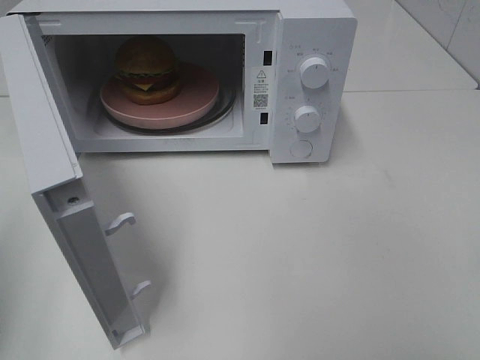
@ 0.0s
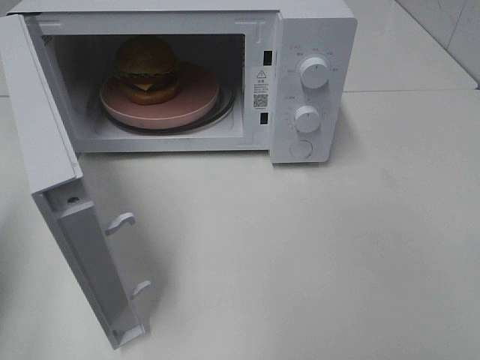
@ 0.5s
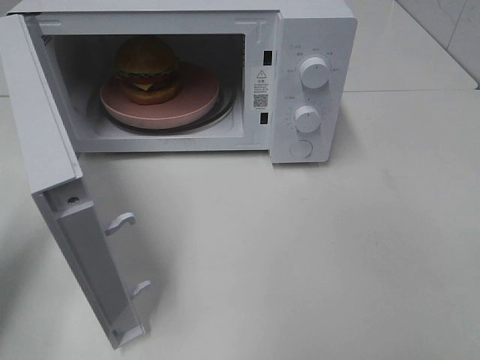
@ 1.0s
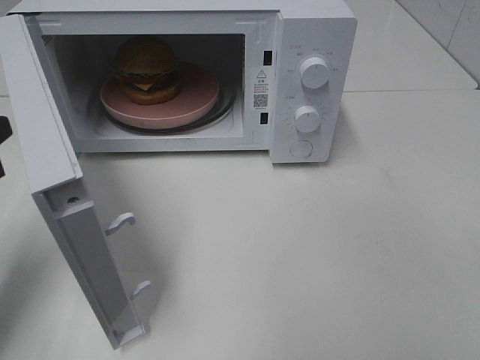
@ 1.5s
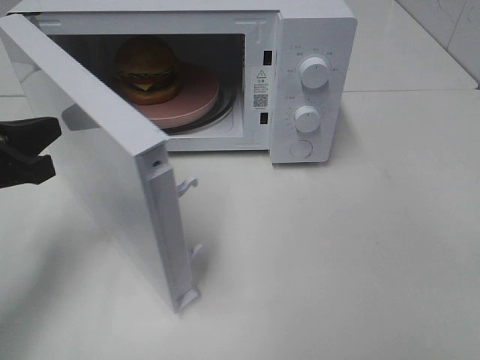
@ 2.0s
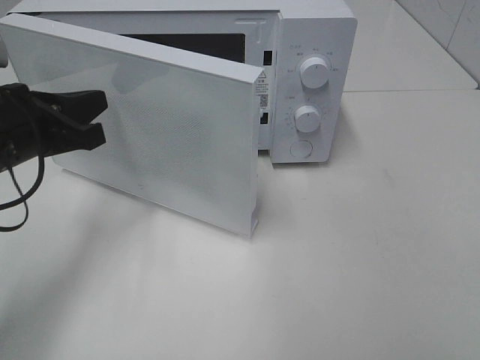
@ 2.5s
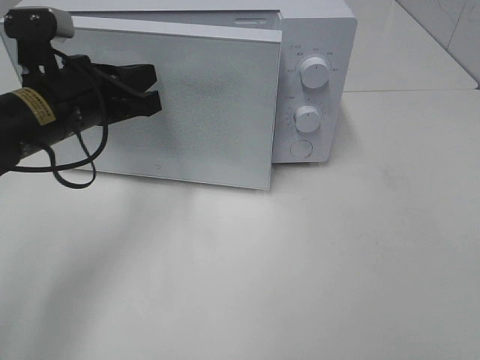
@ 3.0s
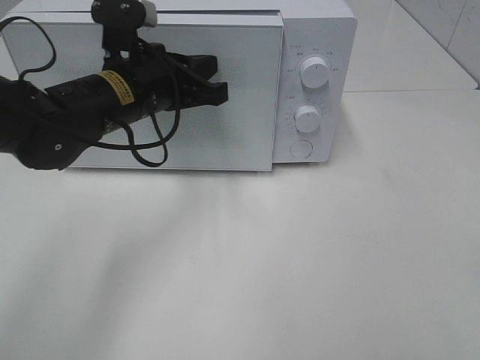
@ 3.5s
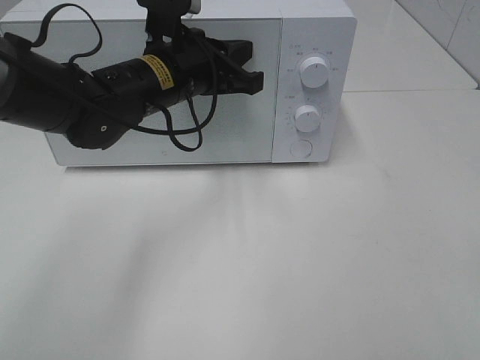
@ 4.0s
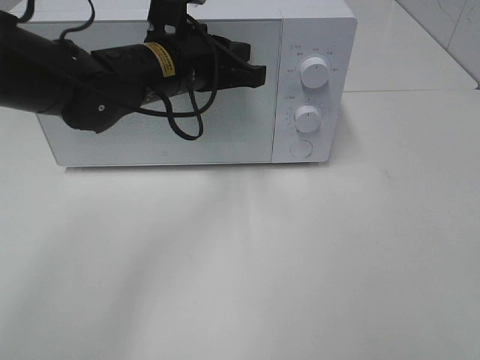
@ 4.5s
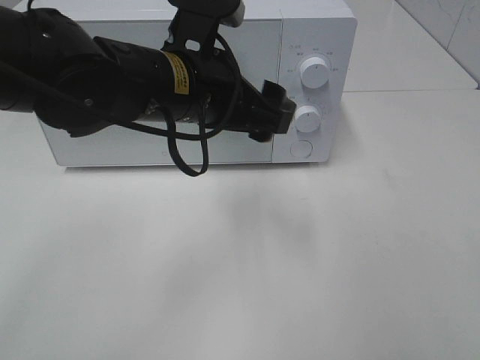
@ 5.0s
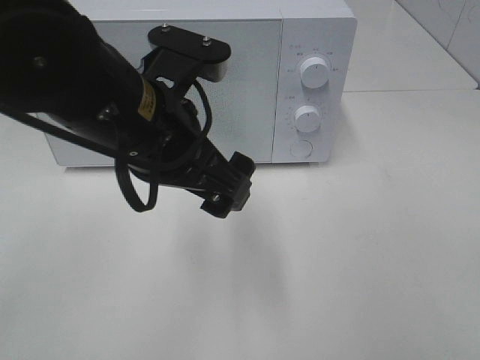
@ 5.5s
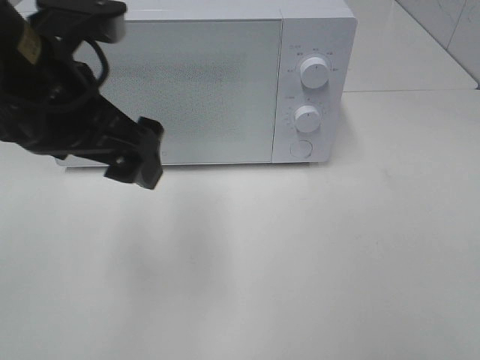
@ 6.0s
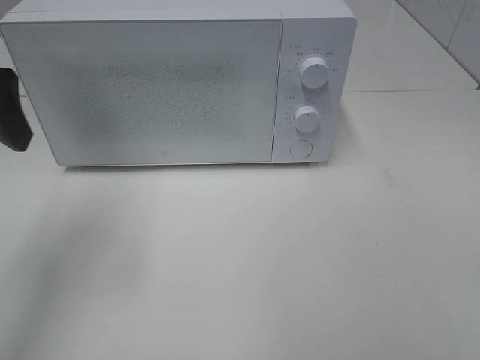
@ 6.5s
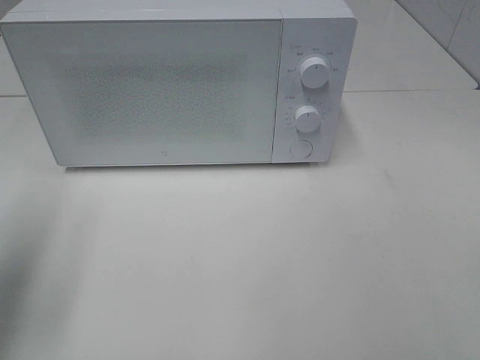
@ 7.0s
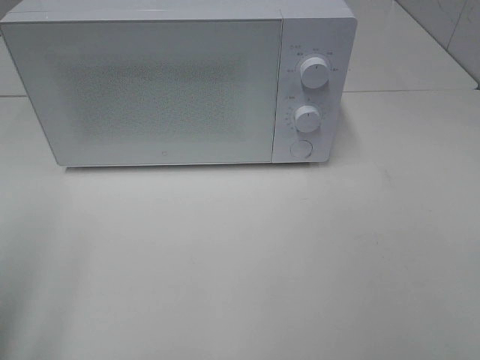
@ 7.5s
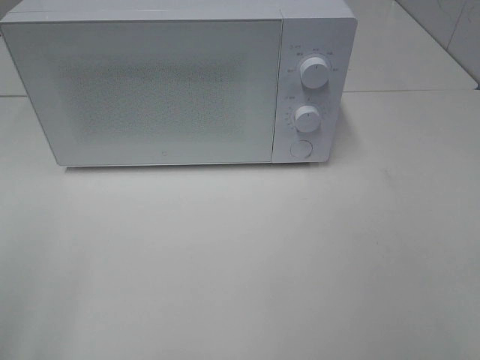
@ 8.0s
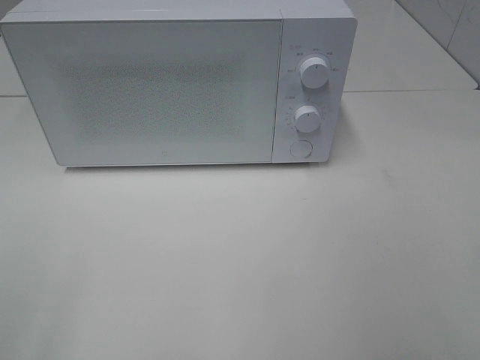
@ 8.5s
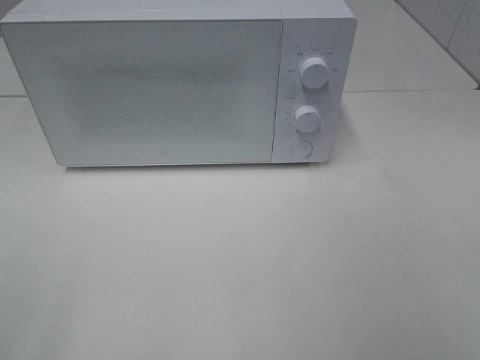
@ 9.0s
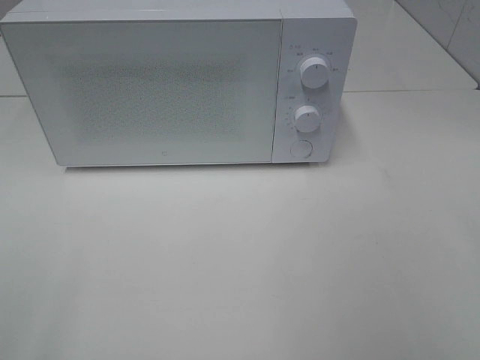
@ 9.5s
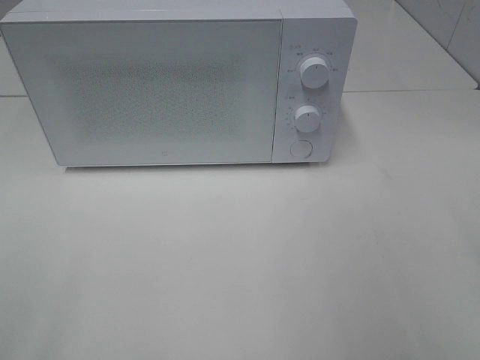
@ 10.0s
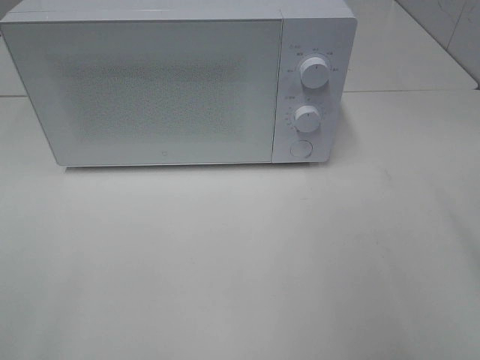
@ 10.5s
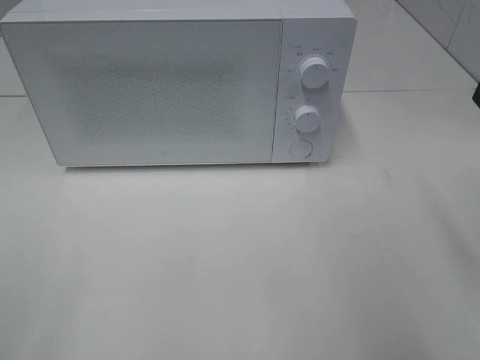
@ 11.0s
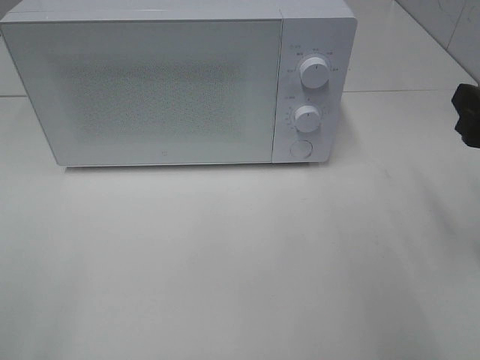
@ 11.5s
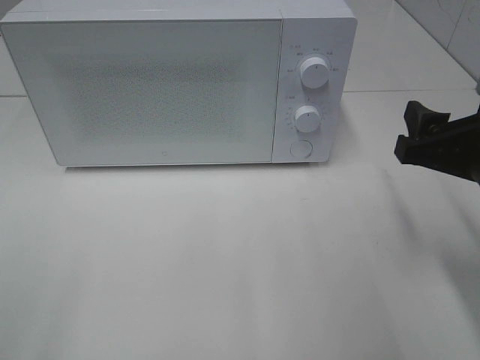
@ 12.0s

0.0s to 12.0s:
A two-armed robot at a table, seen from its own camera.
Task of the whole recording: Heat the burger.
Step, 0.0s to 4.5s: Left hand: close the microwave door.
0.0s to 2.0s: The left gripper heads forward, downward and to the right, covering about 15 cm.
2.0s to 4.0s: The left gripper heads to the right and forward, covering roughly 25 cm.
4.0s to 6.0s: The left gripper shifts roughly 20 cm backward, upward and to the left, and opens up.
6.0s to 8.0s: The left gripper heads backward and to the left, covering about 25 cm.
10.0s to 12.0s: The right gripper shifts about 15 cm downward, forward and to the left.

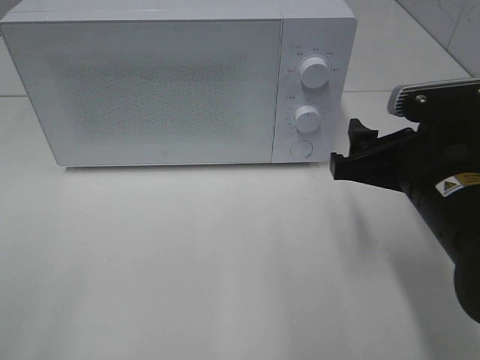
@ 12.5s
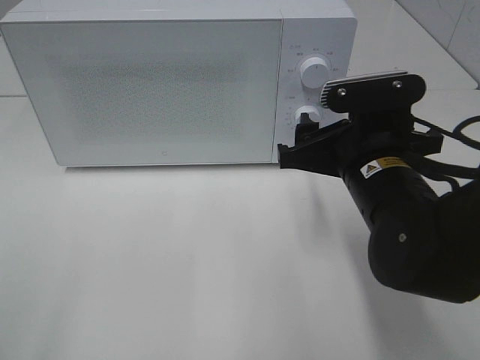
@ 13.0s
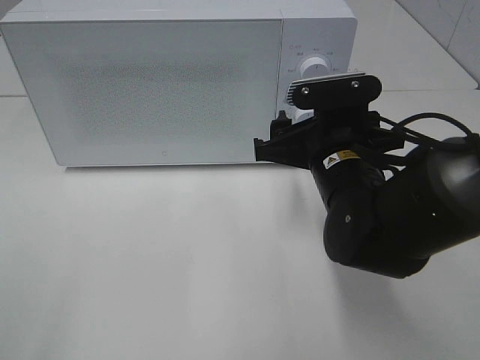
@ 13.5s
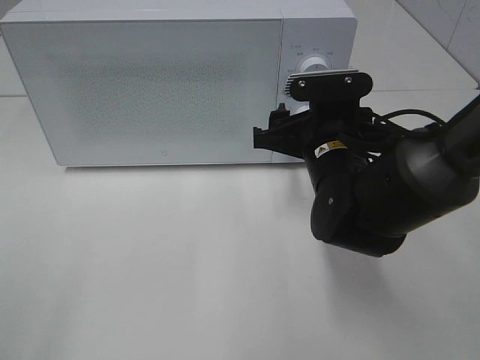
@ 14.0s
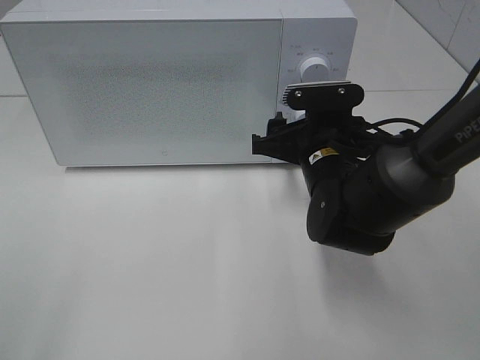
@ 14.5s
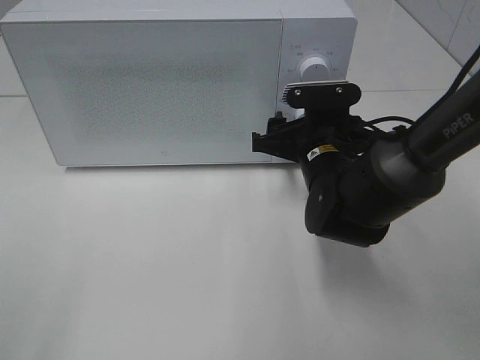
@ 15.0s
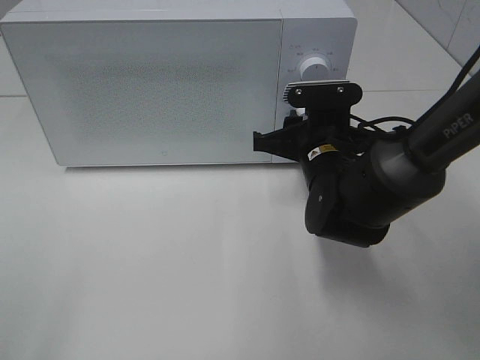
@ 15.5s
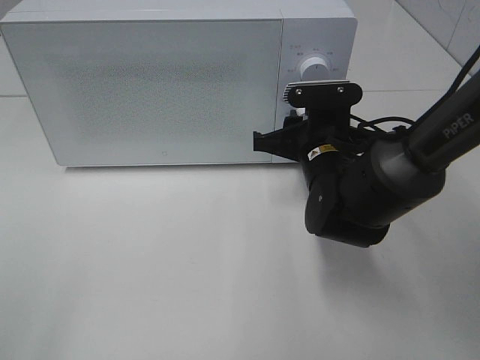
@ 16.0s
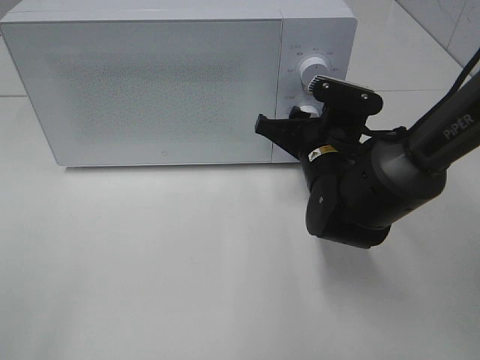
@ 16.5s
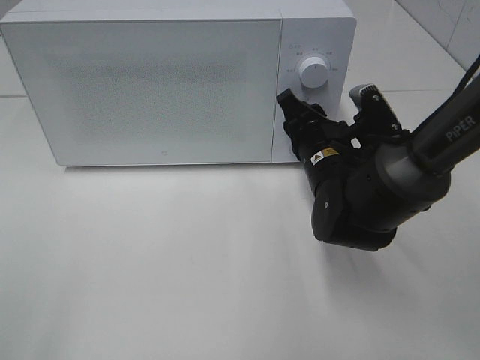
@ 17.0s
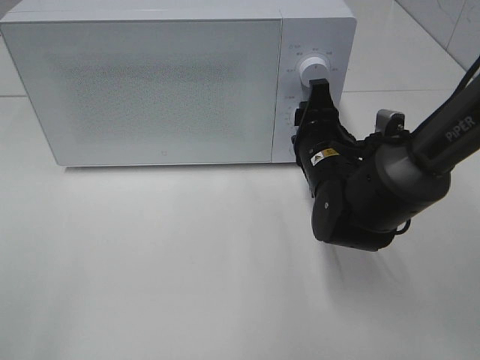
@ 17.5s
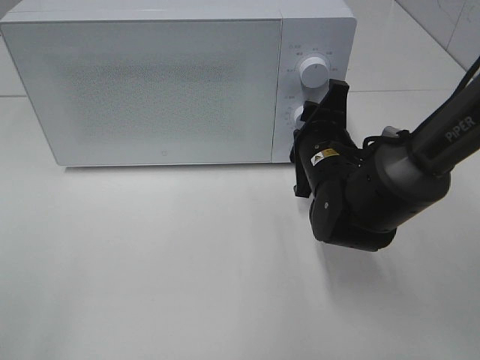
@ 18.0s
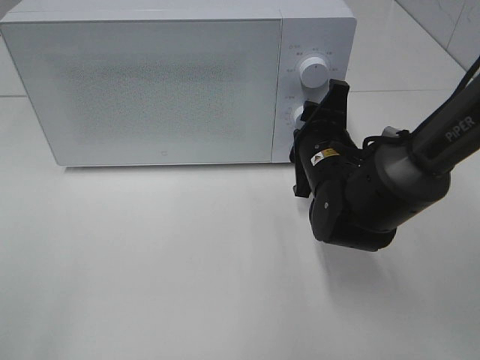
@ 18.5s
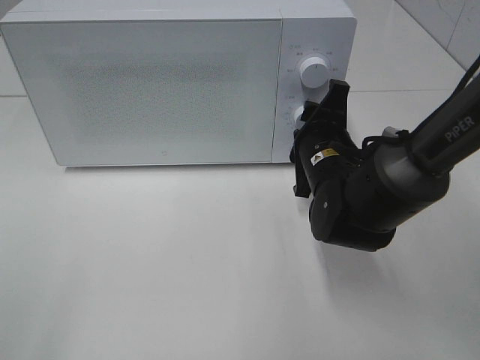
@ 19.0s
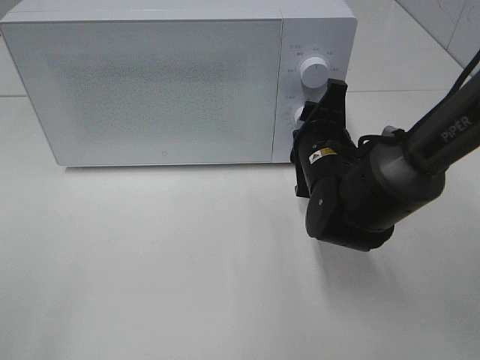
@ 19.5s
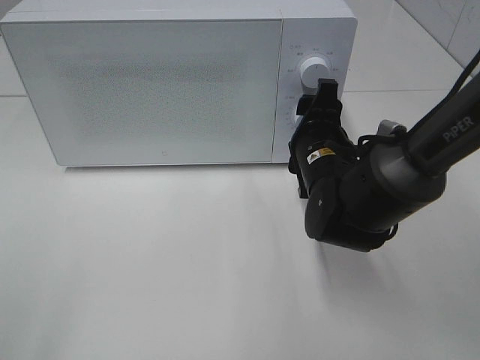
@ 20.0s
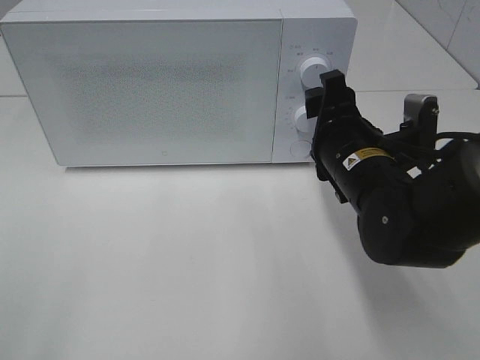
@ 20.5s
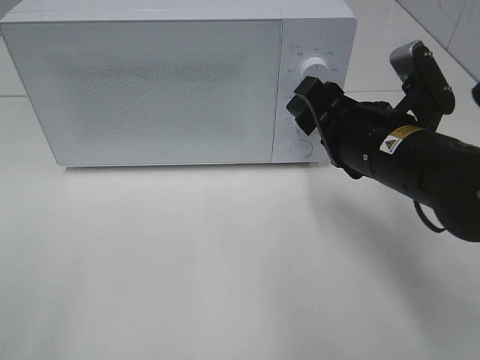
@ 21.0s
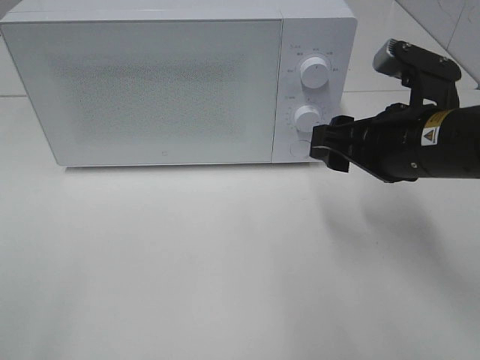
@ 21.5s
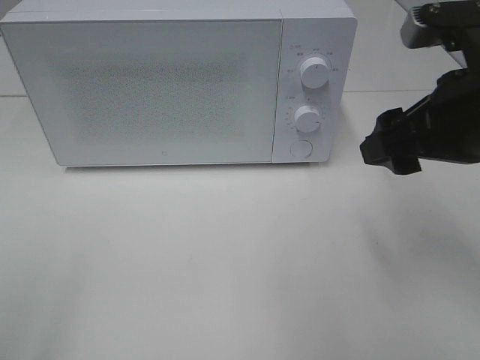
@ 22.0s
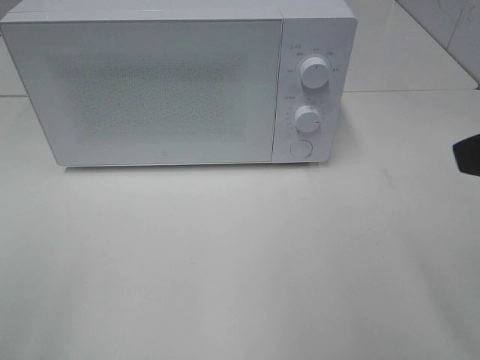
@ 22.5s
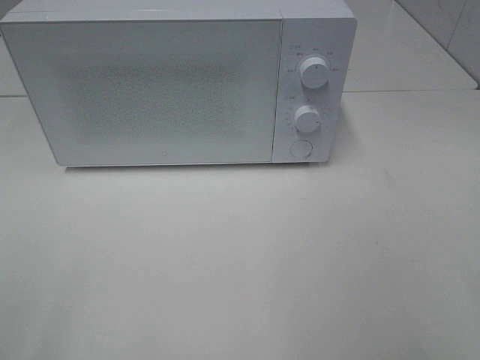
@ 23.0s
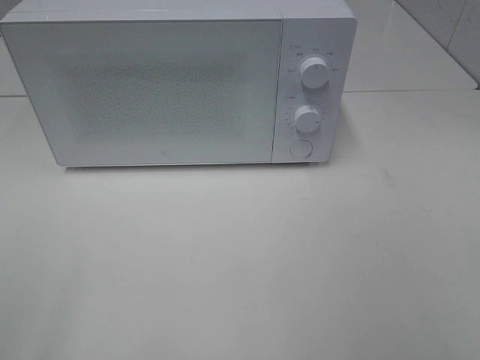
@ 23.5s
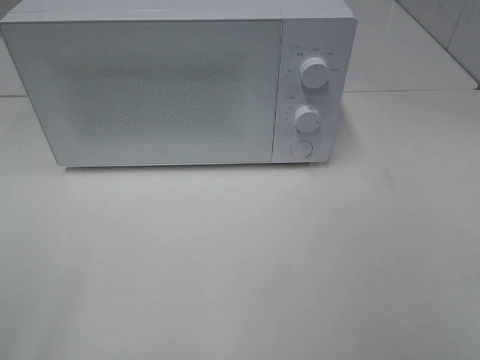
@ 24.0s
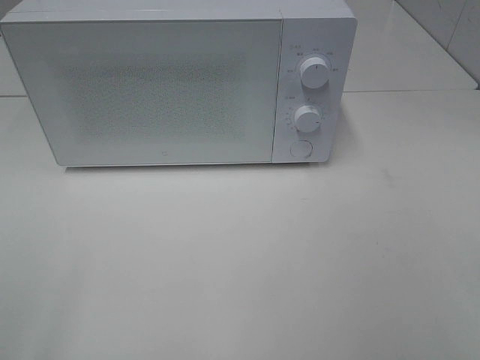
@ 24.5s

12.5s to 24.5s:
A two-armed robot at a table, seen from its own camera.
Task of the whole recording: Heat the burger.
Step, 12.5s to 20.0s: Right hand: twist timer button.
12.5s to 14.5s: The right gripper travels forward, to the left and downward by about 15 cm.
14.5s to 16.5s: The right gripper closes its fingers.
18.5s to 20.5s: The right gripper moves approximately 5 cm.
20.5s to 22.5s: The right gripper is displaced upward, backward and to the right by roughly 25 cm.

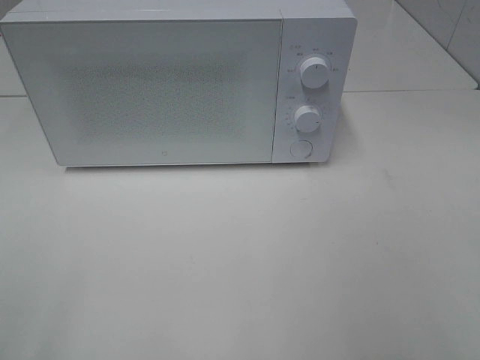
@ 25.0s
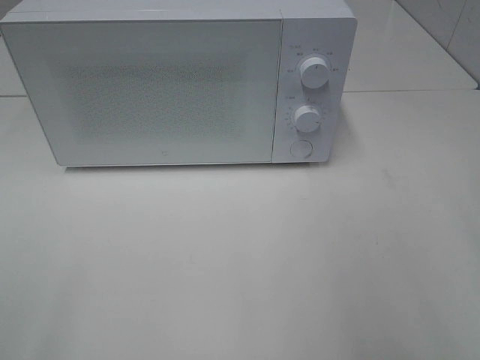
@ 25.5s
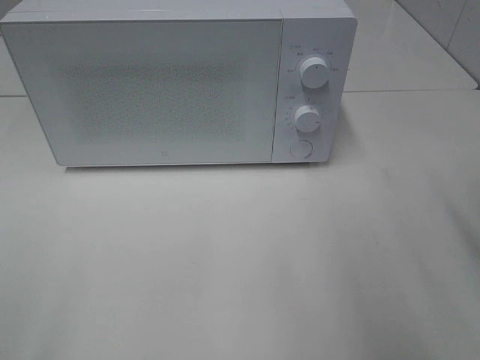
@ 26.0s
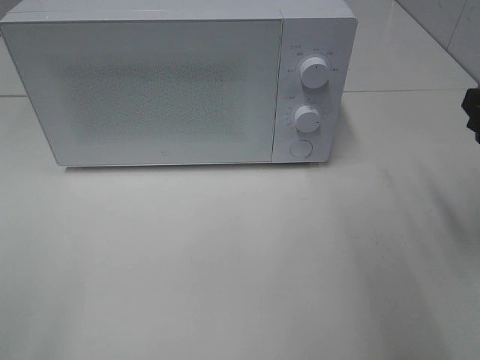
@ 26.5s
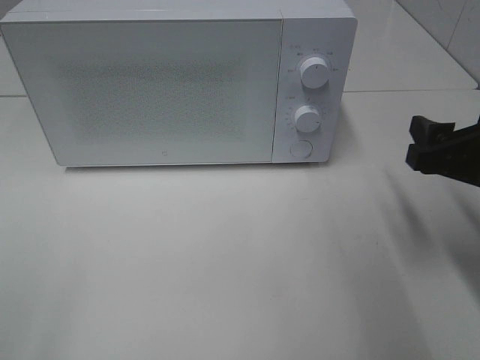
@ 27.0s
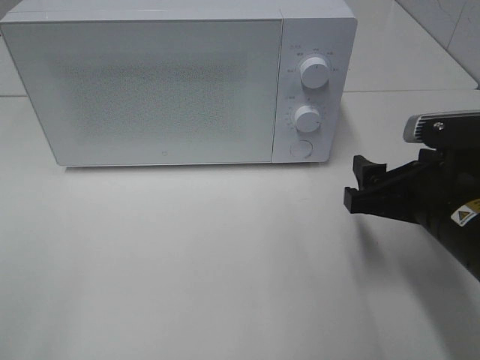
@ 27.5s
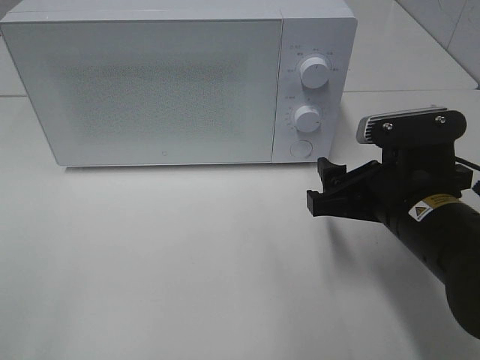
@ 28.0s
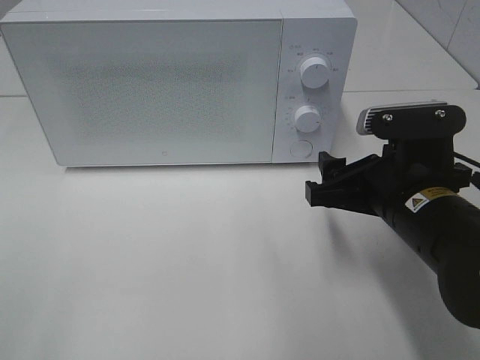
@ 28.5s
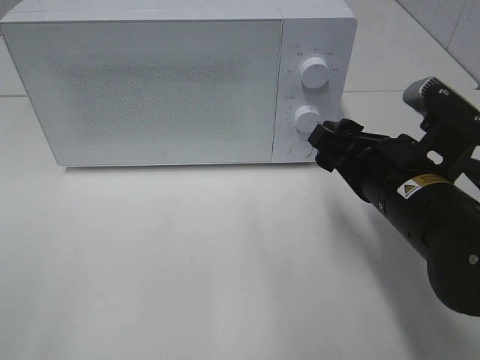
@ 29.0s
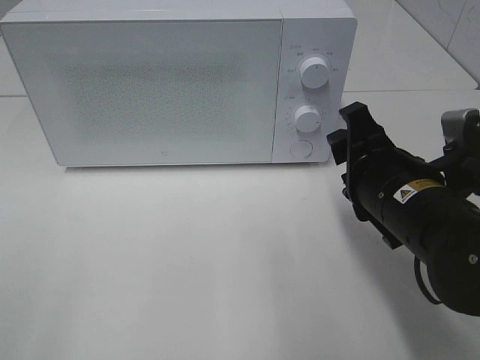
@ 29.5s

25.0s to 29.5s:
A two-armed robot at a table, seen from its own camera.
Task of the whole recording: Heat the burger.
25.0s to 27.0s: The right gripper moves forward and downward, about 20 cm.
27.0s to 29.5s: The right gripper goes some 10 cm to the left.
